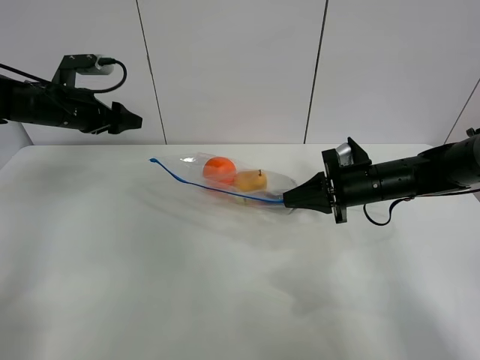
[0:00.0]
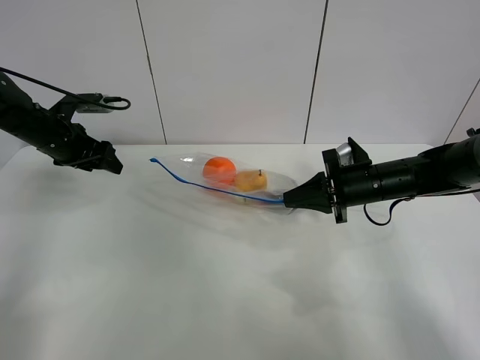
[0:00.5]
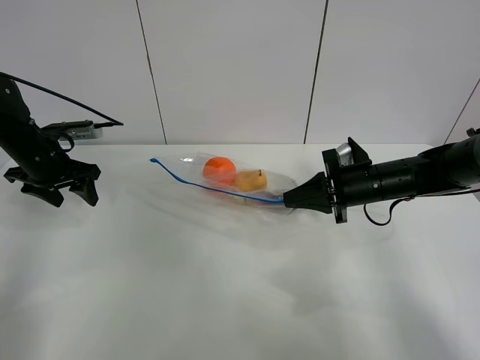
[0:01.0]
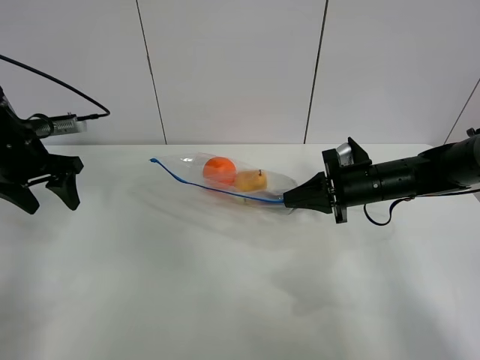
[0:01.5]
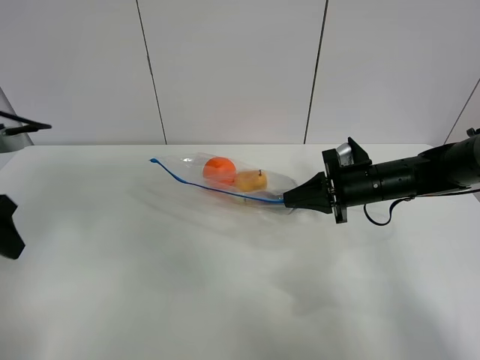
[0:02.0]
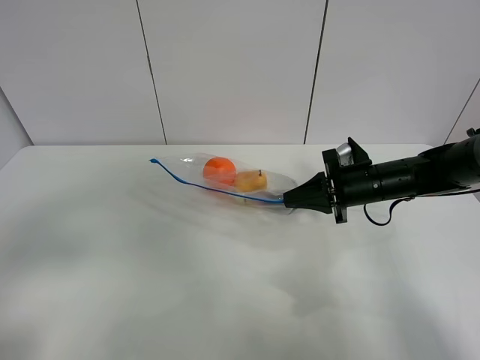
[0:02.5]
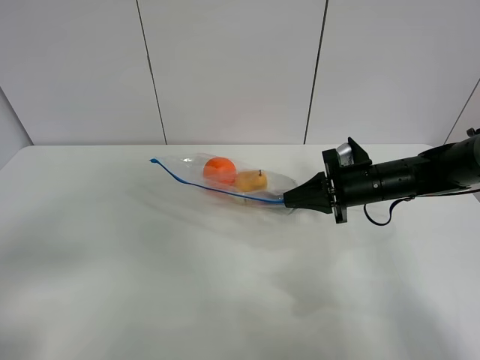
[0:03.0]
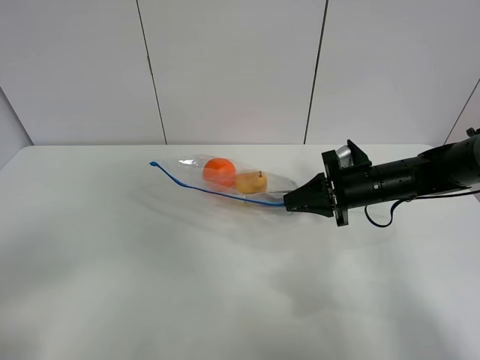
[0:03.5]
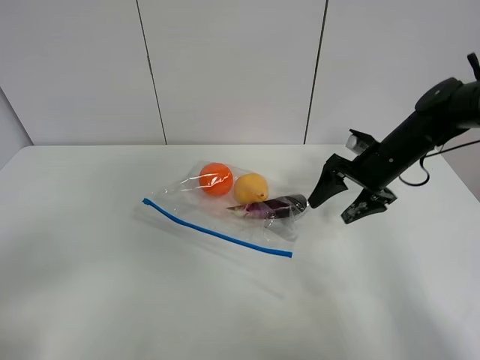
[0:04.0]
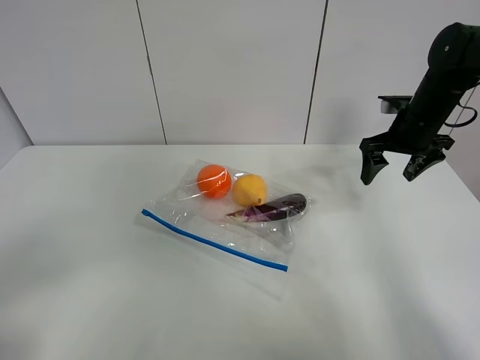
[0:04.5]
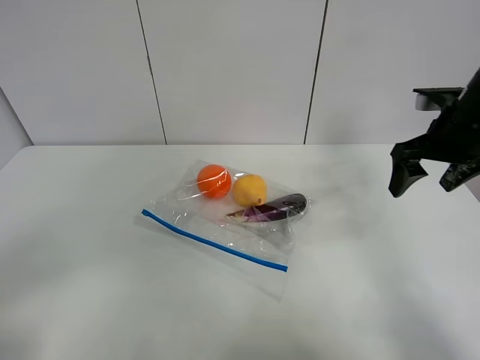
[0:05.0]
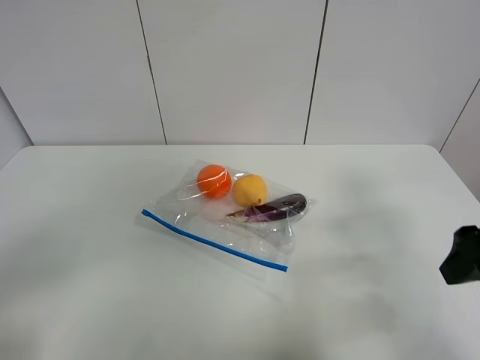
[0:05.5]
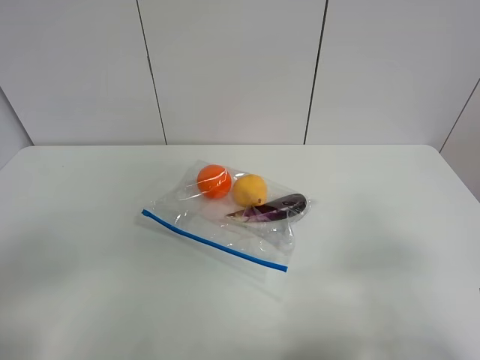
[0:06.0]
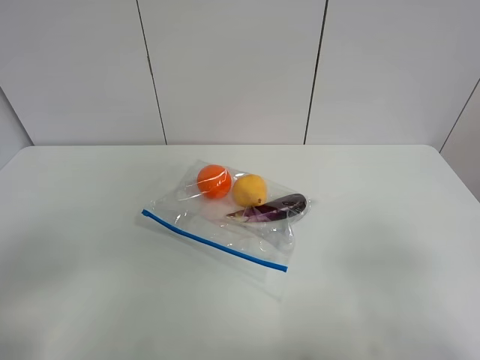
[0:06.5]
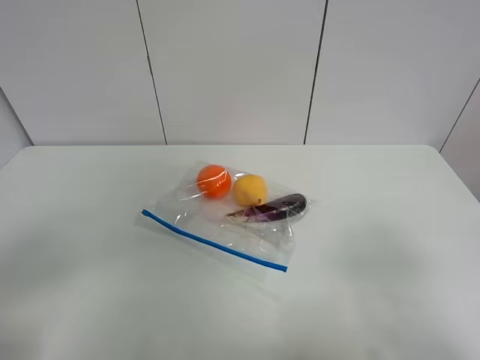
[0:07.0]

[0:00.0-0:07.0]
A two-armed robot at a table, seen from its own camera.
0:00.0 to 0:02.0: The left gripper travels backward by about 25 cm.
0:02.0 to 0:03.5: The left gripper moves backward, about 20 cm.
0:03.5 to 0:05.0: The right gripper travels upward and to the right by approximately 15 cm, and opens its fingers.
0:05.0 to 0:07.0: The right gripper is displaced backward by roughly 30 cm.

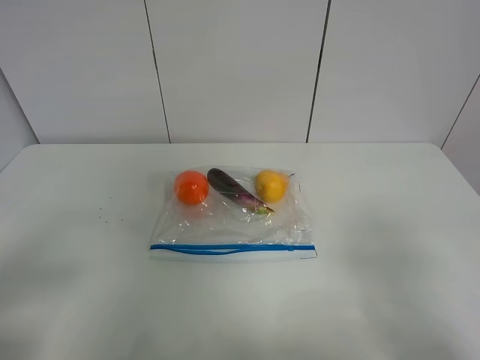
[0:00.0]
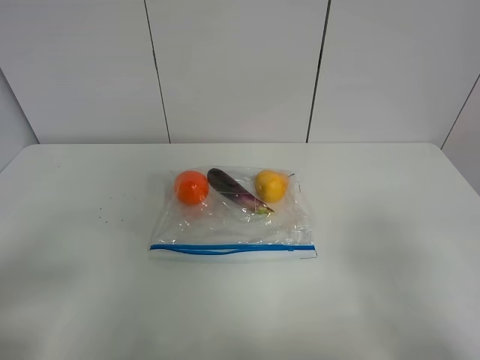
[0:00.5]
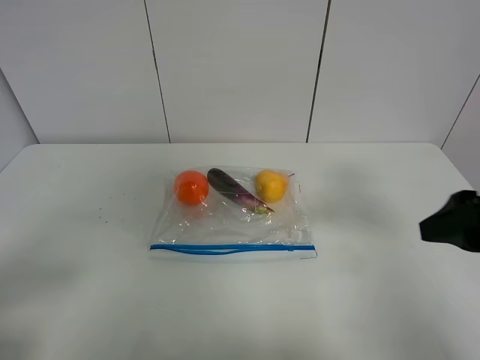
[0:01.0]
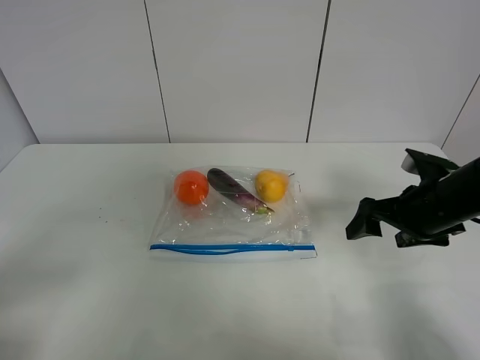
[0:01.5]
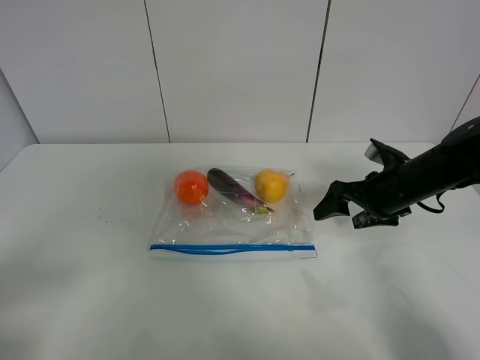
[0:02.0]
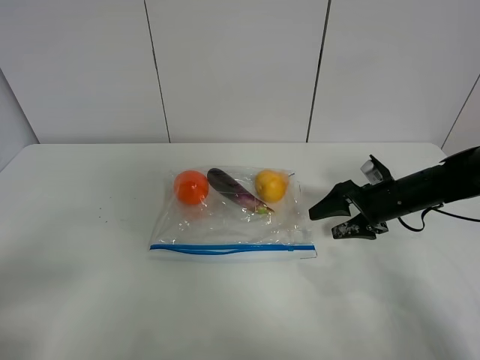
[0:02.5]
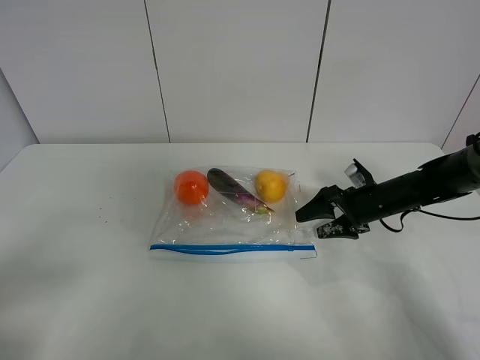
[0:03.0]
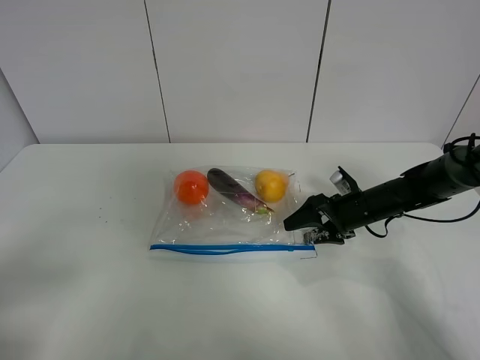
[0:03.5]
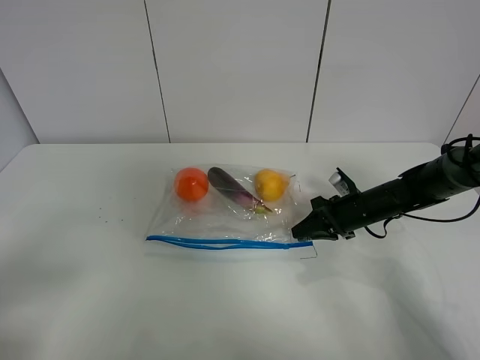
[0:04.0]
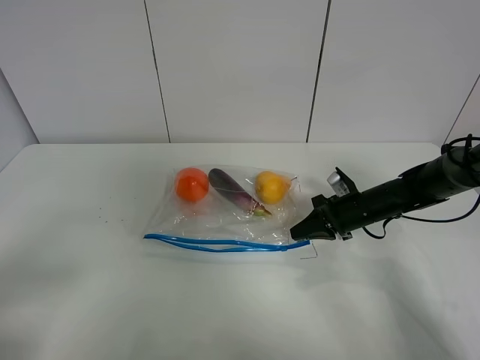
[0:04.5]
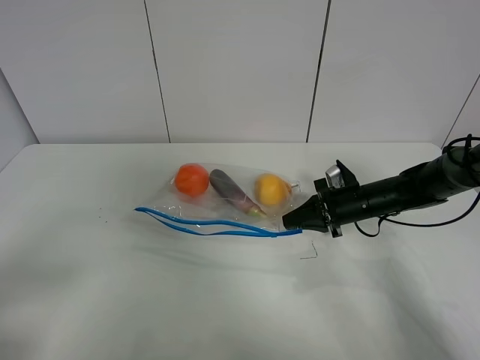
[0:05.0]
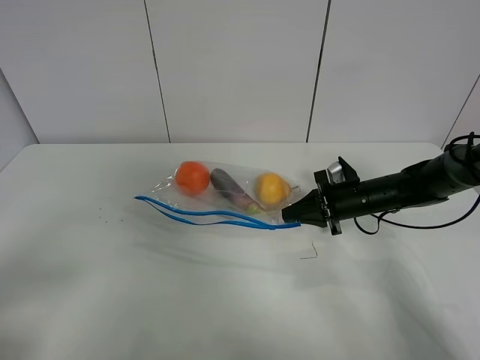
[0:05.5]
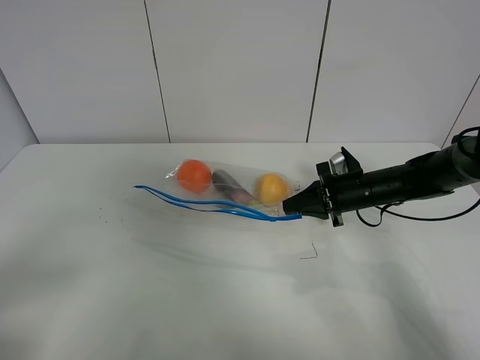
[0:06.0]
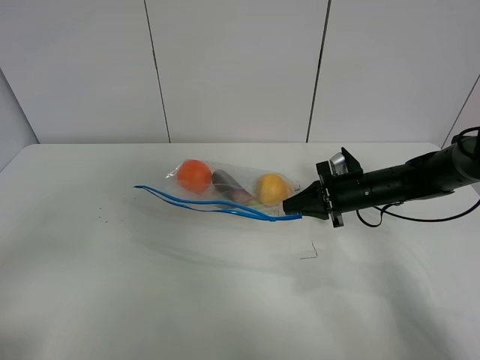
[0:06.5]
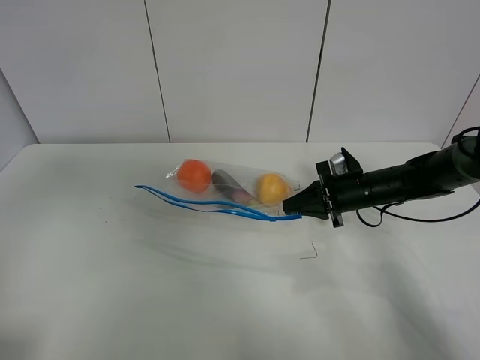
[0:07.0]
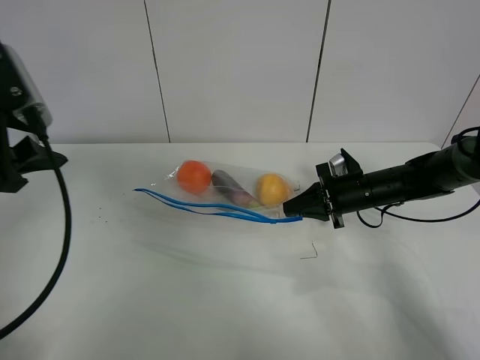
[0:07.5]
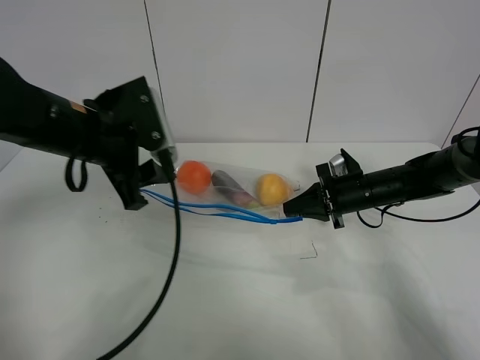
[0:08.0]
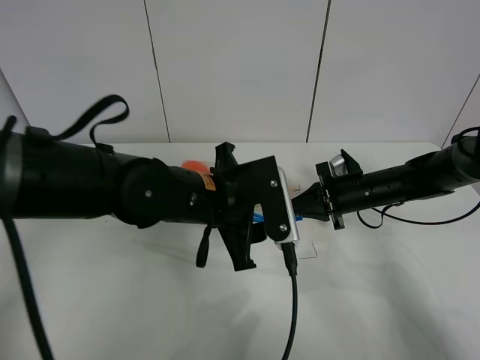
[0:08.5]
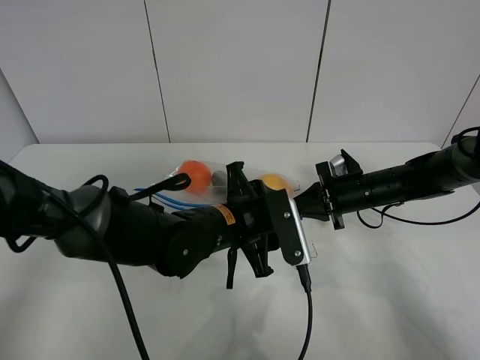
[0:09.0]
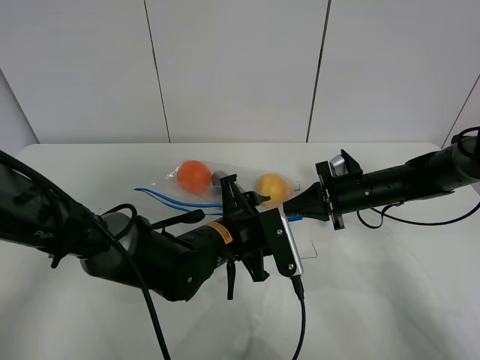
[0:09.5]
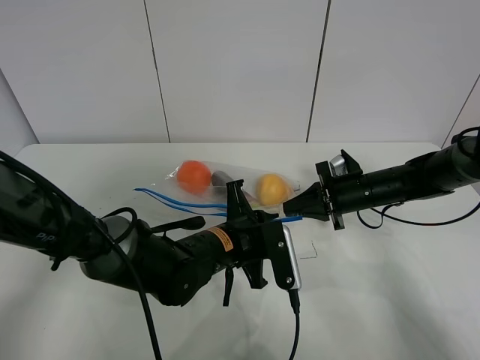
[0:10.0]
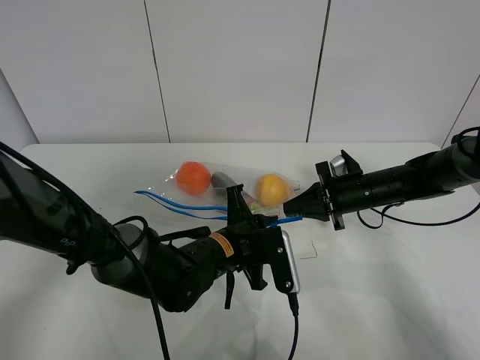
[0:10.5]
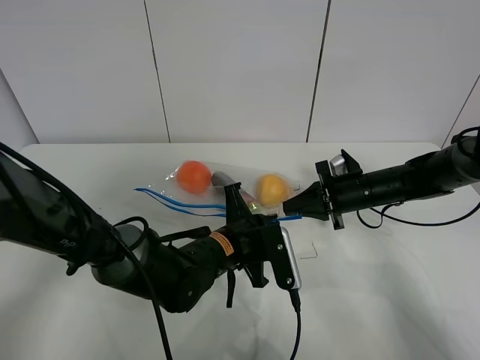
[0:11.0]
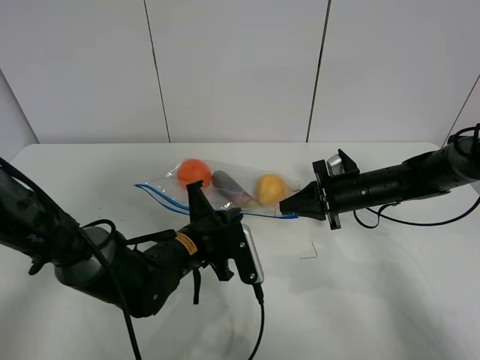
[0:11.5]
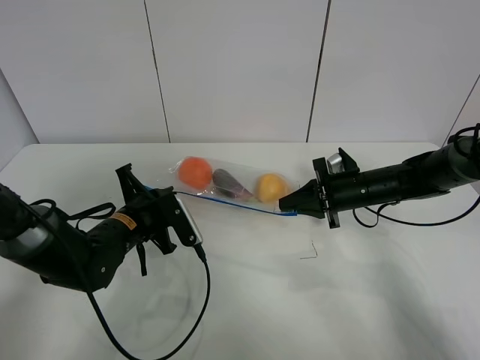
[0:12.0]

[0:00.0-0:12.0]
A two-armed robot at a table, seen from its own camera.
Step, 0:00.0 to 0:04.0: Grasp the fruit bag with right gripper.
Step, 0:04.5 to 0:06.0: Lift the fruit bag with your right gripper.
0:00.0 to 0:02.0: The right gripper shifts approximately 30 cm forward.
0:02.0 to 0:04.0: The right gripper heads downward, covering about 10 cm, and closes up.
0:04.0 to 0:06.0: The grippers make only small movements.
0:06.0 to 0:08.0: The left gripper travels forward and to the right by roughly 30 cm.
0:08.0 to 0:10.0: The left gripper goes roughly 20 cm downward and to the right, and closes its fingers.
0:10.0 to 0:12.0: The left gripper travels to the left by roughly 15 cm.

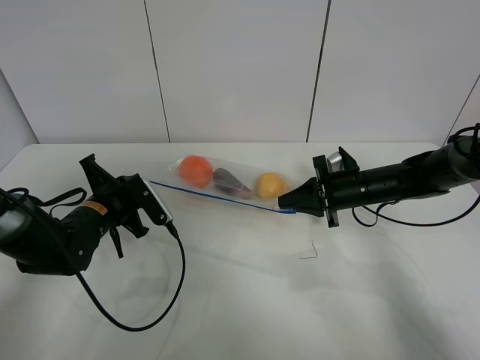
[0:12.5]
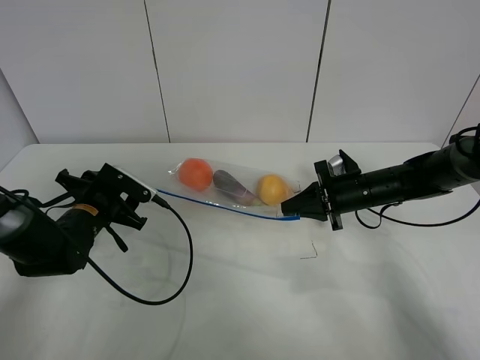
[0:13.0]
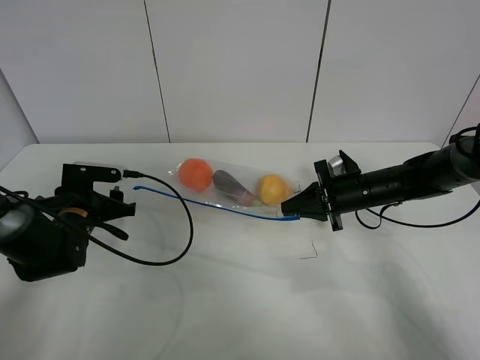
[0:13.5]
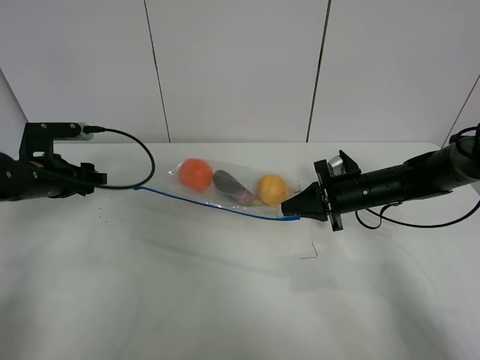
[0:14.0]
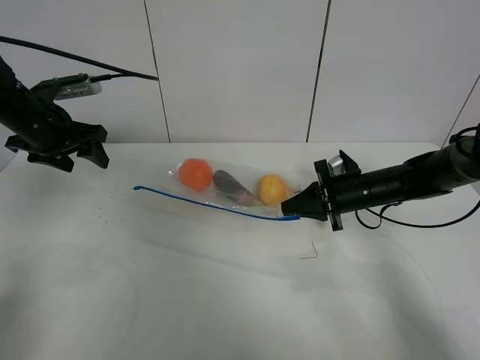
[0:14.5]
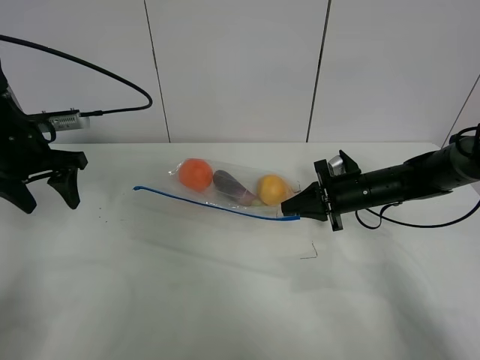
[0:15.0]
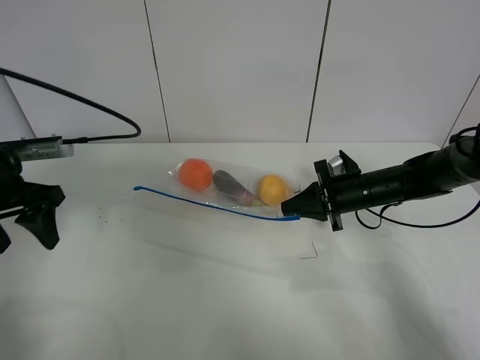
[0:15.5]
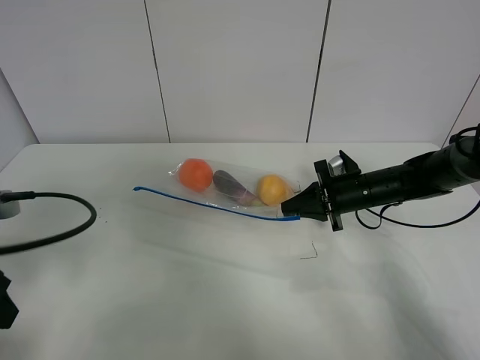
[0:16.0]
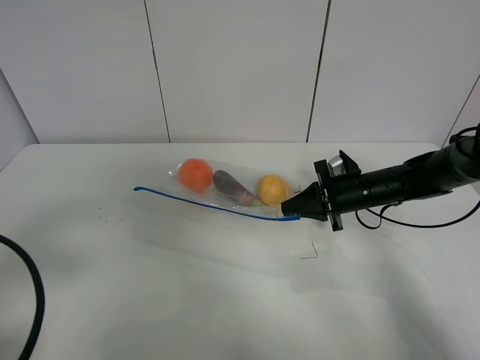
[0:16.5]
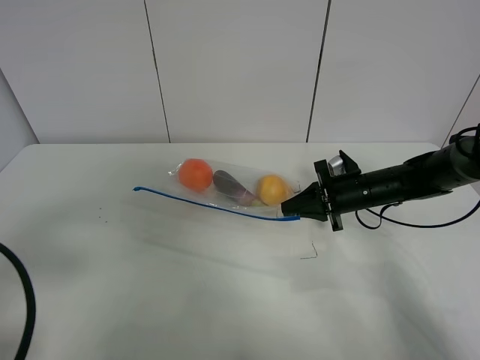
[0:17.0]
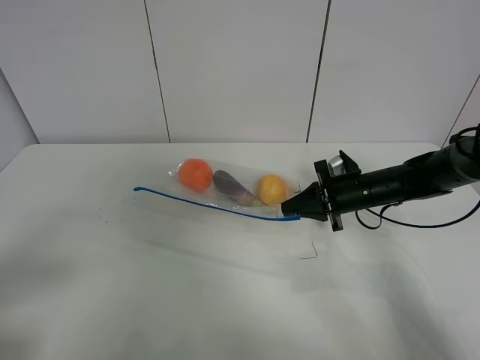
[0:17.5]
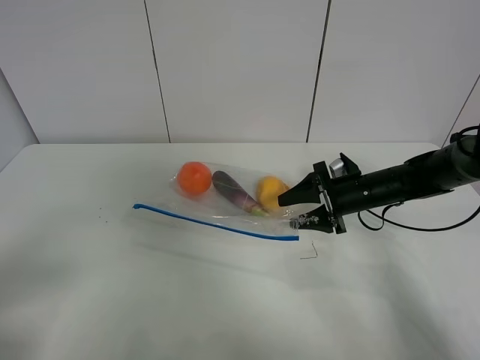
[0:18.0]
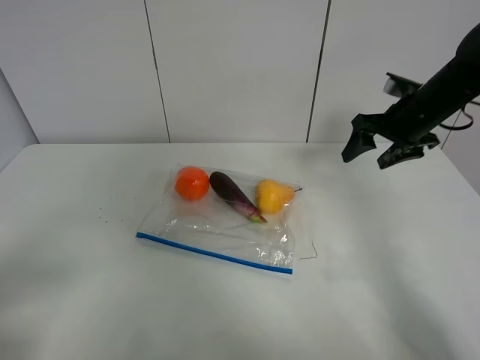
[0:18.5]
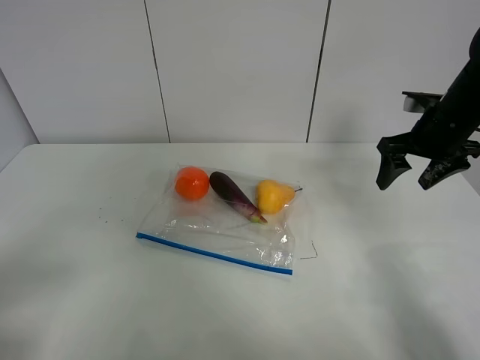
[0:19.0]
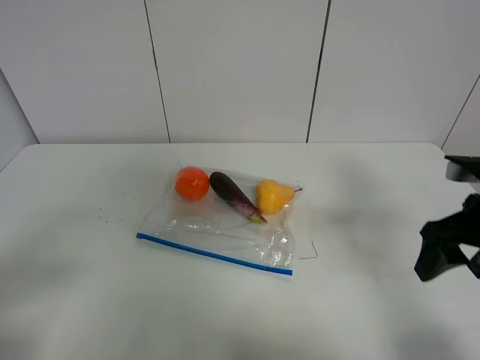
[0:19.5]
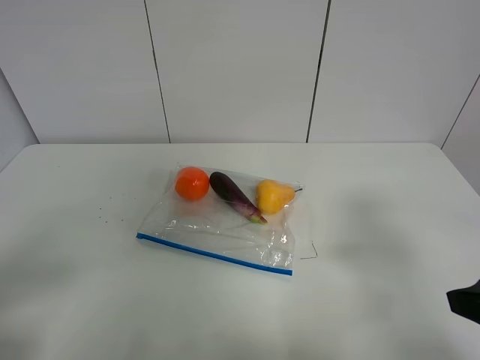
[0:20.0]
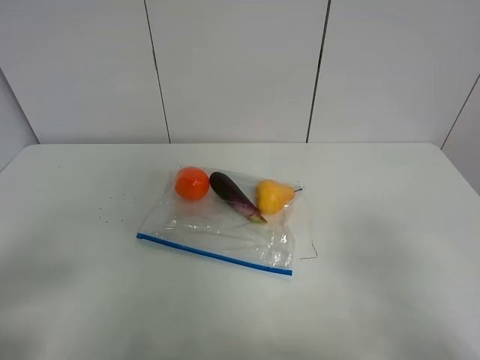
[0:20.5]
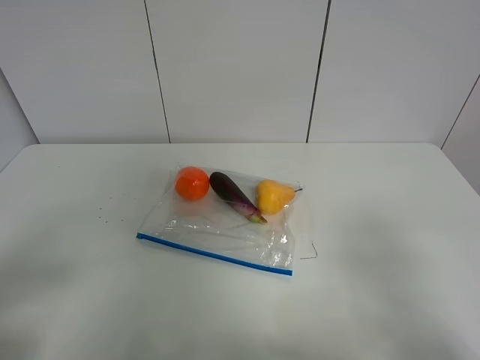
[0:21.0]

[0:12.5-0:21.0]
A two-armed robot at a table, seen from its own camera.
0:12.5 to 0:14.5: The left gripper travels upward, to the left and forward by roughly 15 cm, and opens.
0:14.5 to 0:16.5: The left gripper is displaced backward by about 30 cm.
0:16.5 to 0:19.0: The right gripper shifts roughly 15 cm upward and to the right, and opens. The left gripper heads backward, covering some 10 cm.
0:19.0 to 0:21.0: The right gripper travels backward by about 35 cm.
